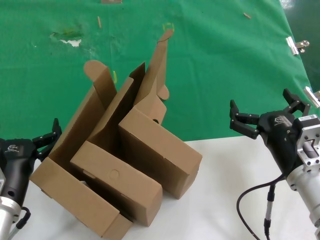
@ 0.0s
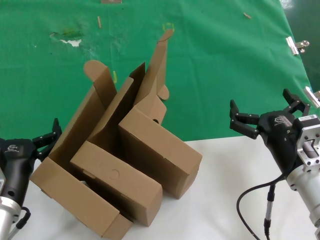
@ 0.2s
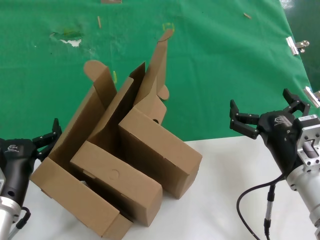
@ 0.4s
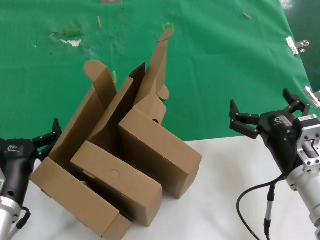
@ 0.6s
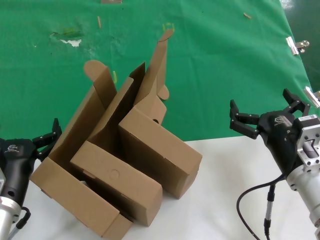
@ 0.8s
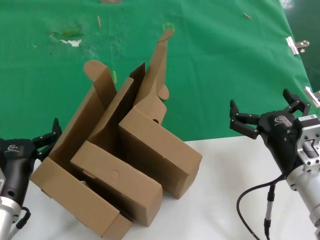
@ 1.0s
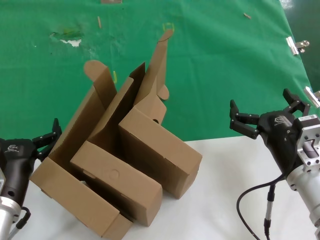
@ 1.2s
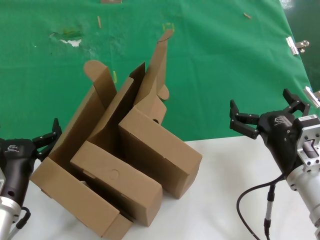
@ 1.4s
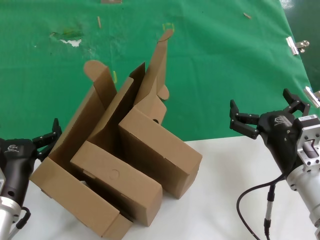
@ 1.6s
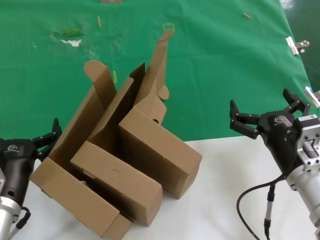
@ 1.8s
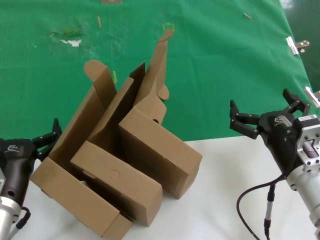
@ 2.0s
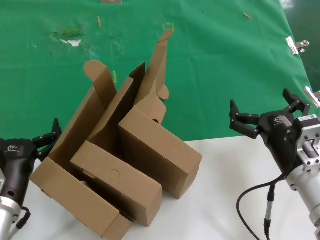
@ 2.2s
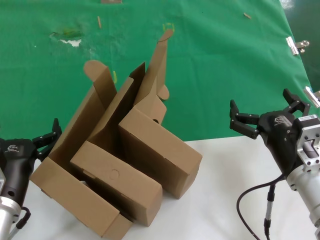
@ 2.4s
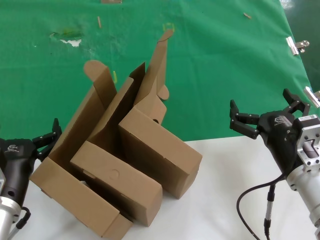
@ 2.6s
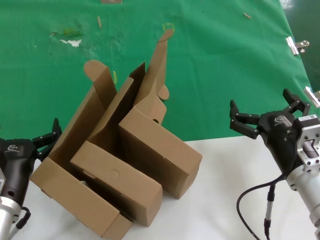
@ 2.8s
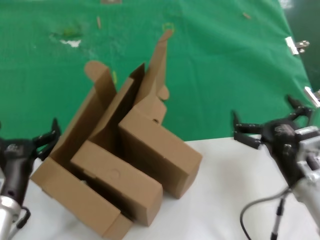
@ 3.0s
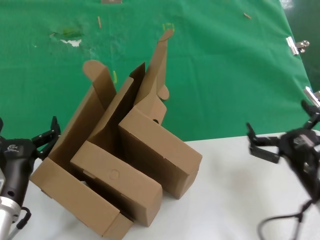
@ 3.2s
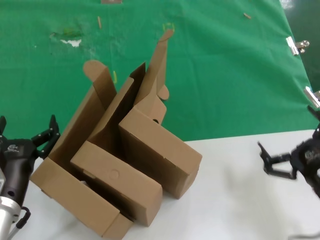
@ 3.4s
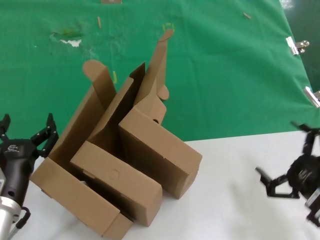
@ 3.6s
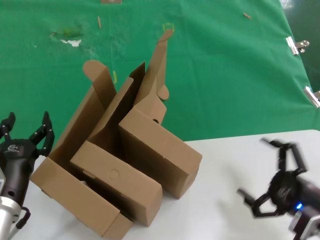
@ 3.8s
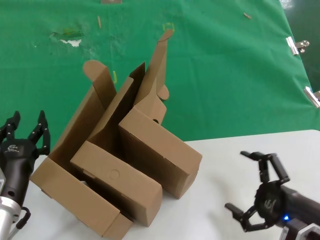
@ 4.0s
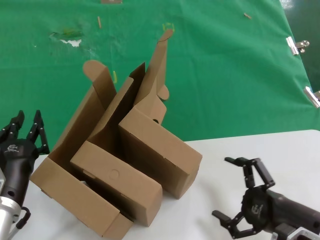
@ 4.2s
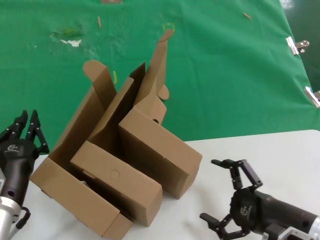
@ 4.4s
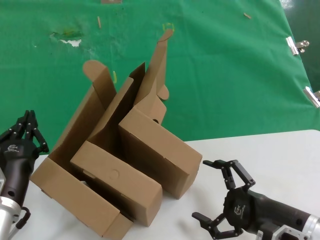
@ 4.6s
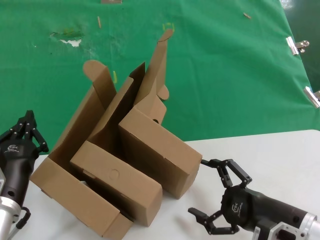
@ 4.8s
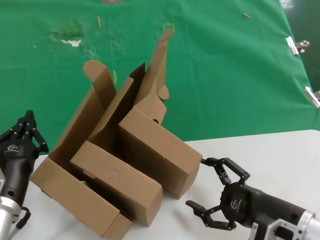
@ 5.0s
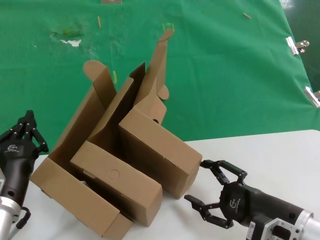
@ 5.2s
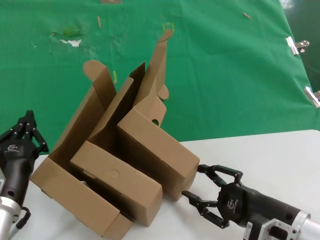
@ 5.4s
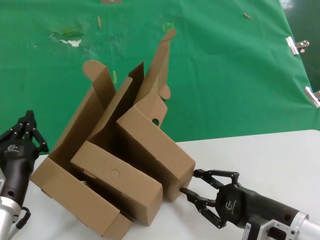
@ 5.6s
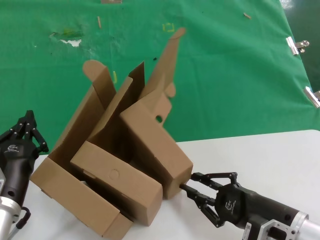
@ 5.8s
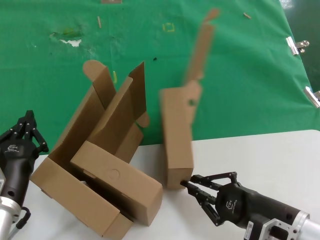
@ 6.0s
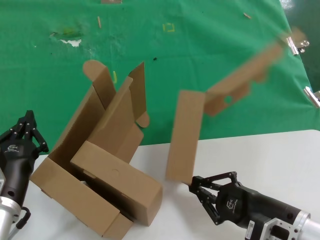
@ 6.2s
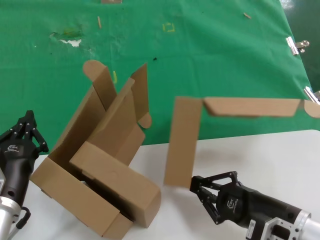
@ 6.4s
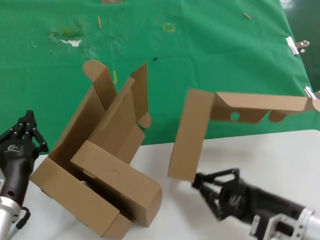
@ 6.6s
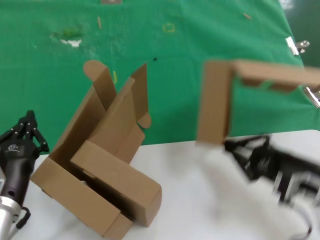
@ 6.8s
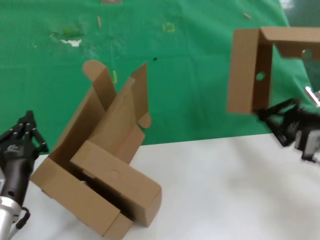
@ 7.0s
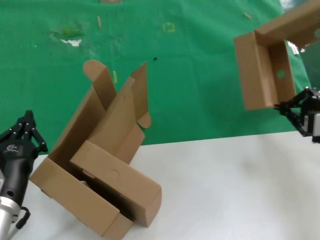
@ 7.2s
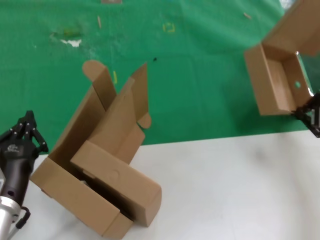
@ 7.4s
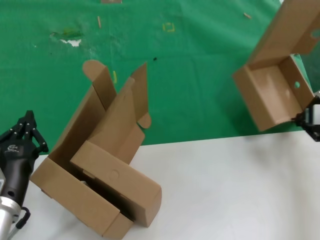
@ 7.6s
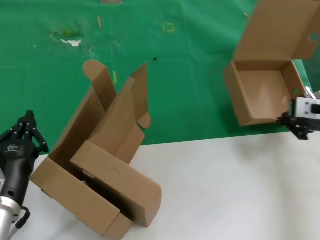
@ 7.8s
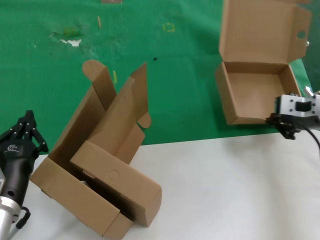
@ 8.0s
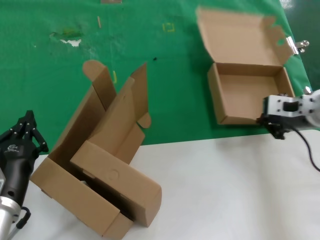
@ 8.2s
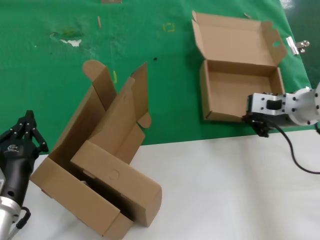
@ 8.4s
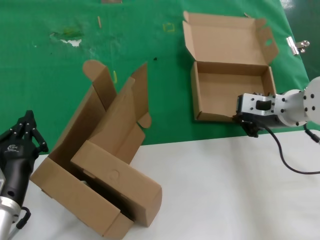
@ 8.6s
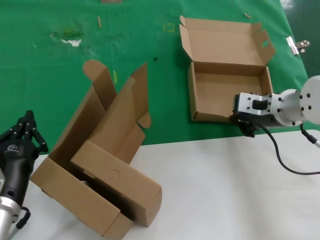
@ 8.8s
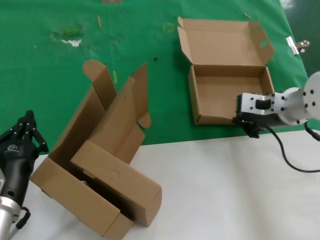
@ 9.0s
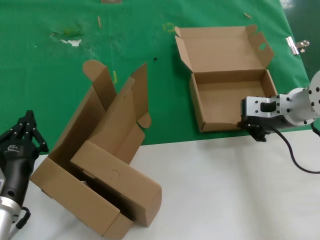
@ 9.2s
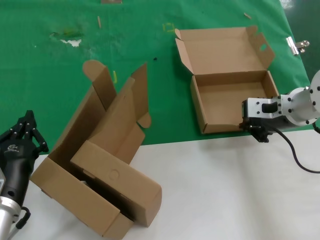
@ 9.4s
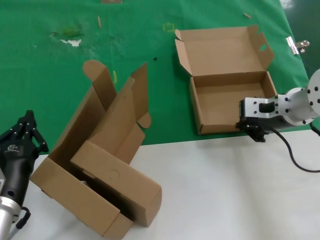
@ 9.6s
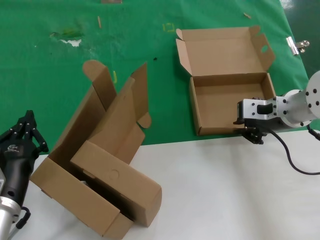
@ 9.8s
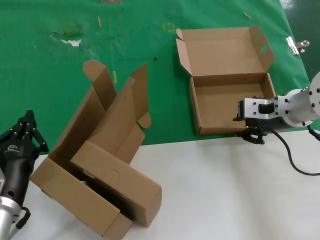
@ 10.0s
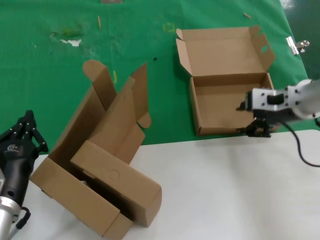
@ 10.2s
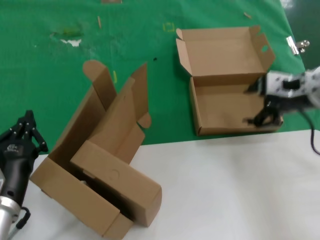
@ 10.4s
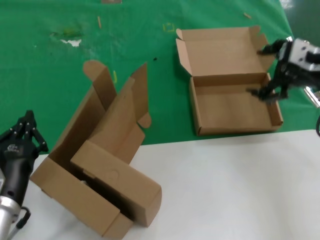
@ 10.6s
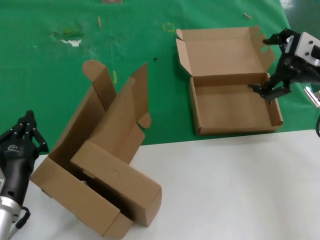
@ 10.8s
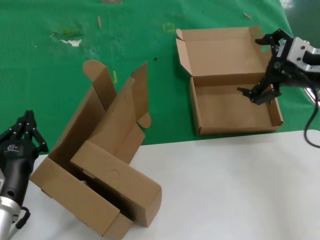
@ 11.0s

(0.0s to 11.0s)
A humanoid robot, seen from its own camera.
Task of the whole recording: pick up the paper box and put it at the back.
Step, 0.0s - 6.0s: Grasp the paper box.
Step, 6.2s - 9.8s: Place the paper box on the table.
0.0s - 1.6s: Neither hand changes place.
1.6s - 3.2s: The right hand moves about 5 cm.
4.8s - 6.2s: The hands stay close to where they were, moving slightly.
6.2s - 7.8s: The right hand heads forward, upward and to the right, covering approximately 25 cm.
7.8s - 9.4s: The right hand is displaced to the left by roughly 10 cm.
9.4s - 11.0s: The right hand shifts some 10 cm upward.

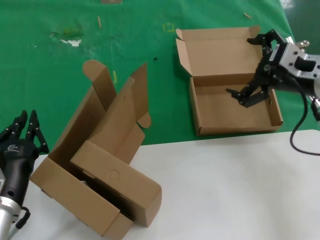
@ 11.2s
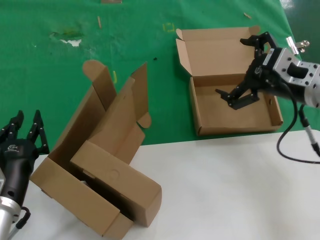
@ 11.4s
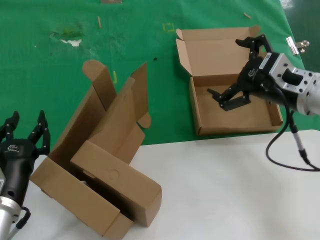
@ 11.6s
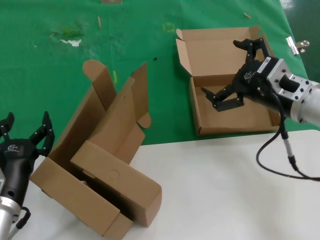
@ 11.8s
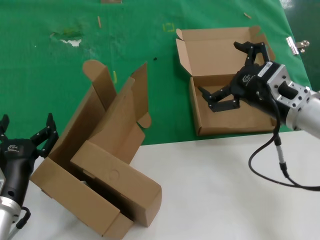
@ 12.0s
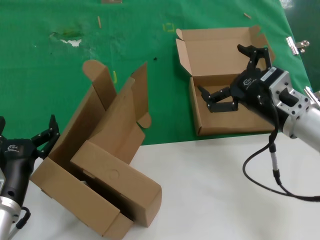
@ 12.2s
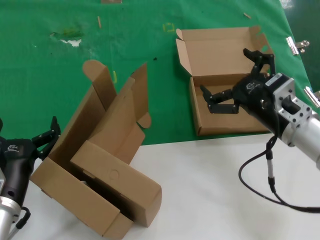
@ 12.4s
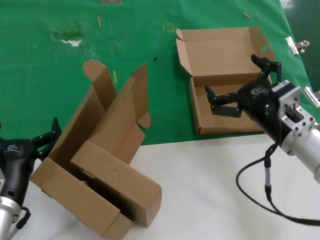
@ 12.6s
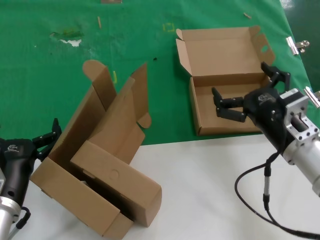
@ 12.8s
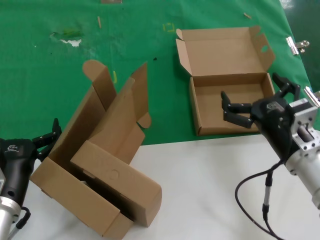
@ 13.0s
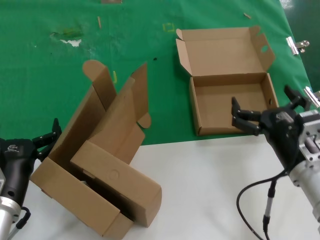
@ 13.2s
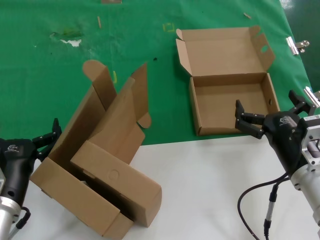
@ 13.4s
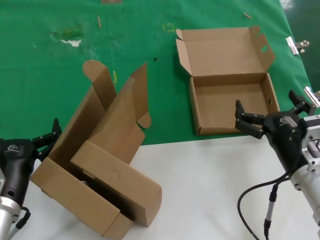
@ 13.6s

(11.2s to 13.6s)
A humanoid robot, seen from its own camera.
Task of the whole recording: pick up the paper box and put it at the back.
11.2s - 12.4s: The right hand shifts about 10 cm downward and to the left.
12.4s - 13.6s: The right hand moves downward and backward, approximately 10 cm.
